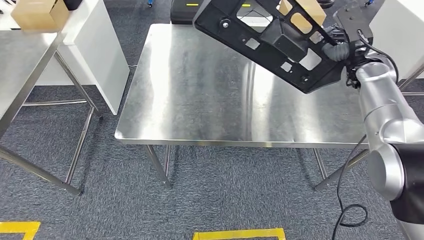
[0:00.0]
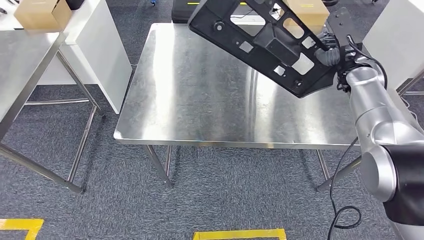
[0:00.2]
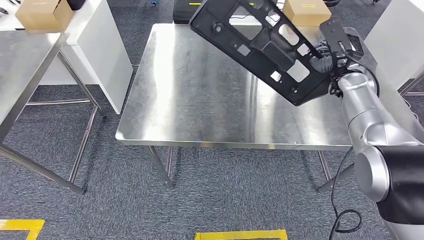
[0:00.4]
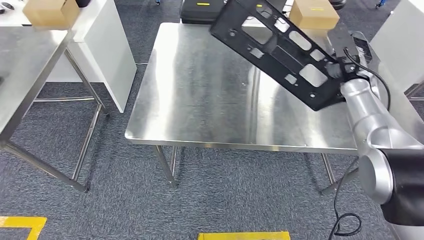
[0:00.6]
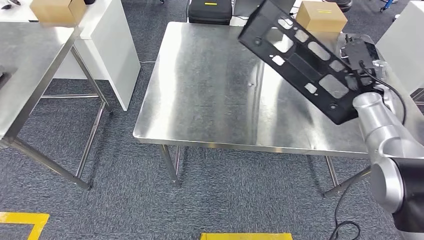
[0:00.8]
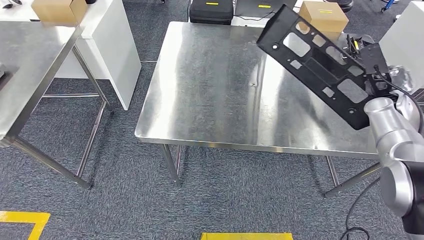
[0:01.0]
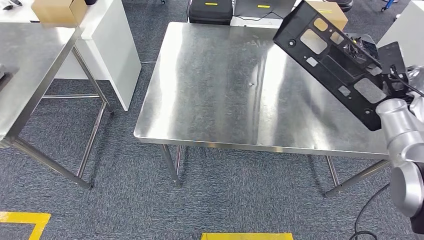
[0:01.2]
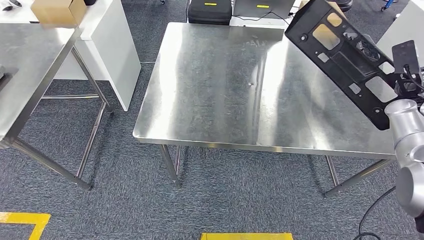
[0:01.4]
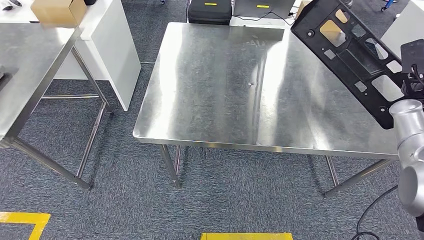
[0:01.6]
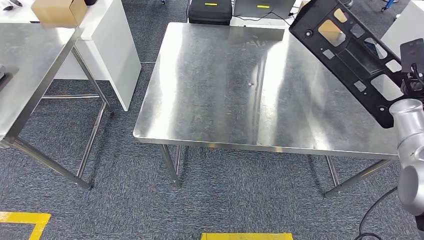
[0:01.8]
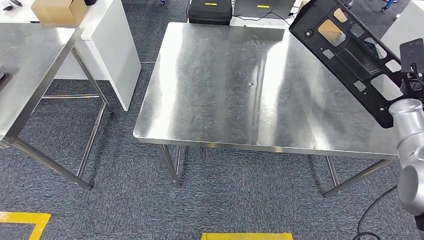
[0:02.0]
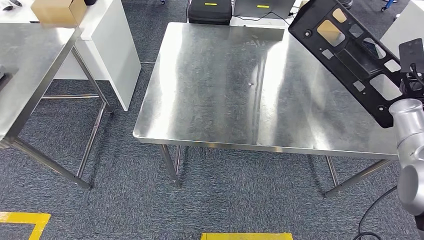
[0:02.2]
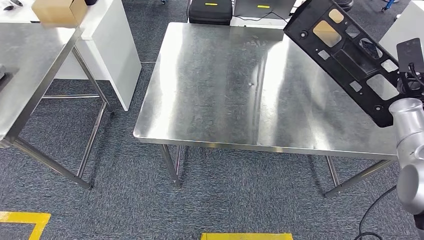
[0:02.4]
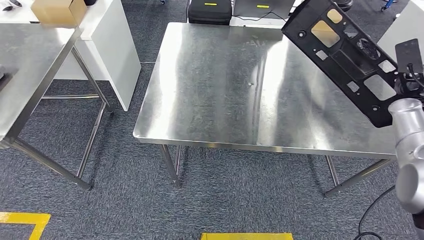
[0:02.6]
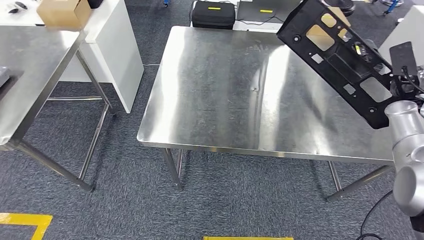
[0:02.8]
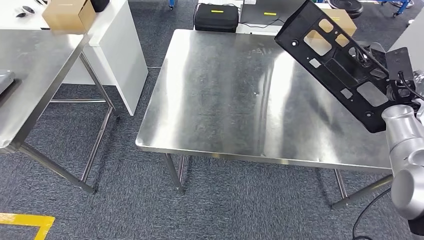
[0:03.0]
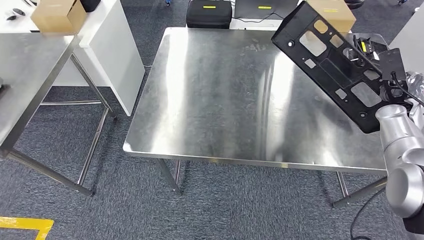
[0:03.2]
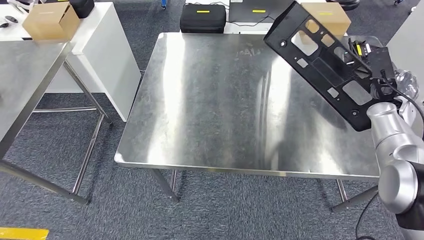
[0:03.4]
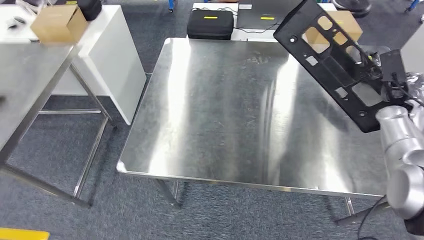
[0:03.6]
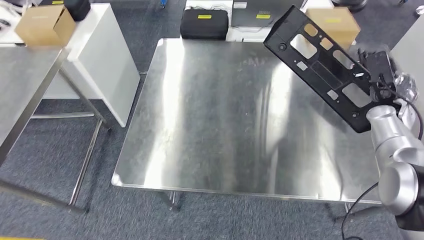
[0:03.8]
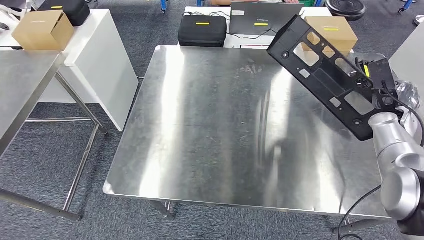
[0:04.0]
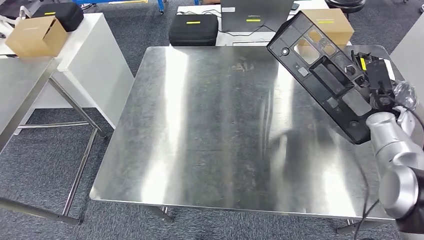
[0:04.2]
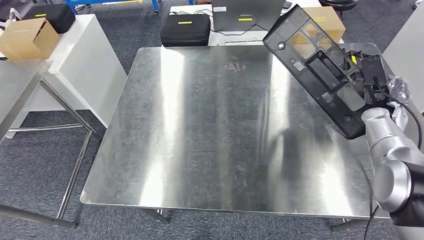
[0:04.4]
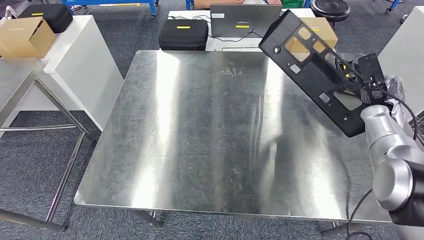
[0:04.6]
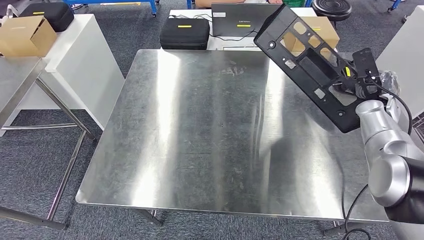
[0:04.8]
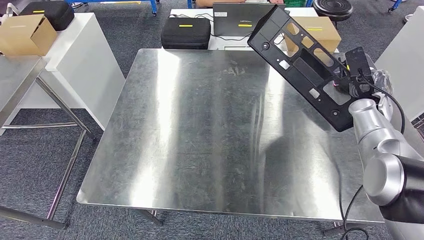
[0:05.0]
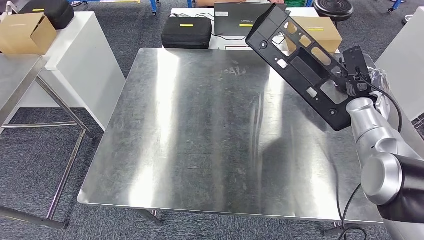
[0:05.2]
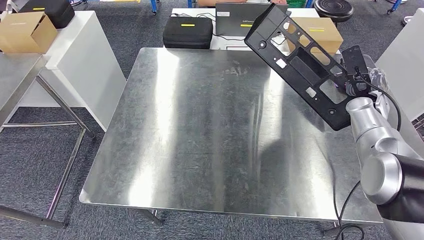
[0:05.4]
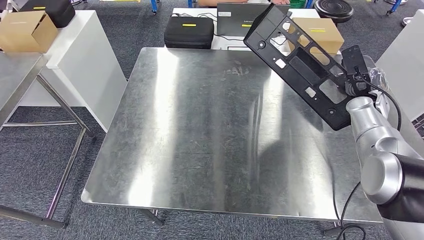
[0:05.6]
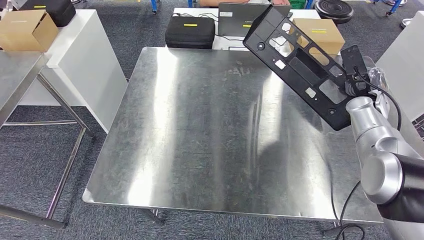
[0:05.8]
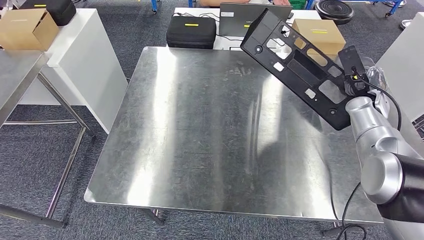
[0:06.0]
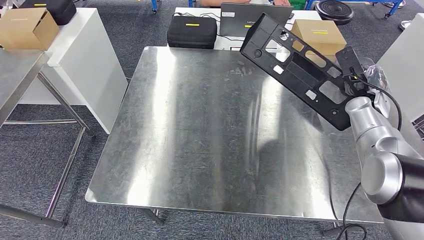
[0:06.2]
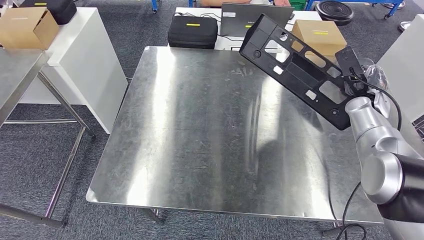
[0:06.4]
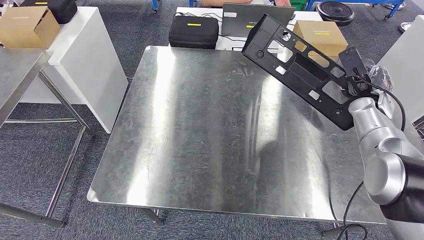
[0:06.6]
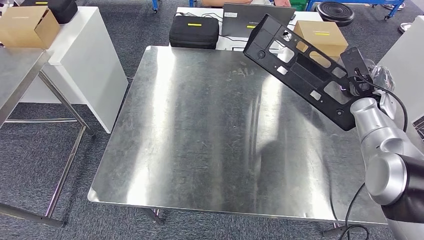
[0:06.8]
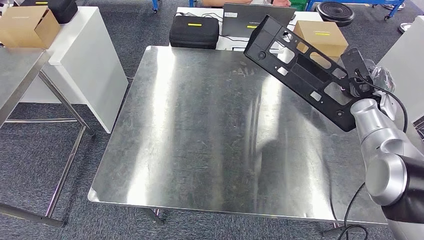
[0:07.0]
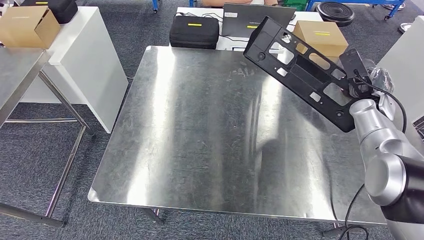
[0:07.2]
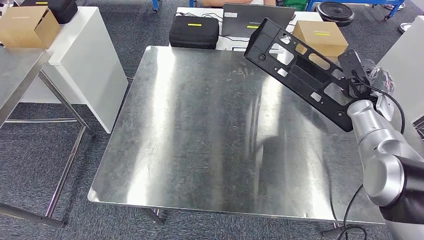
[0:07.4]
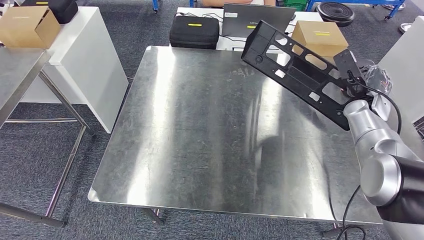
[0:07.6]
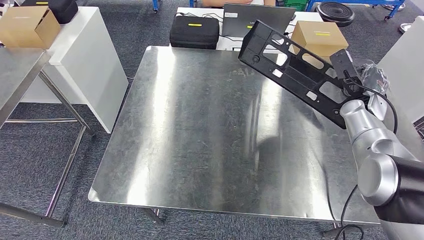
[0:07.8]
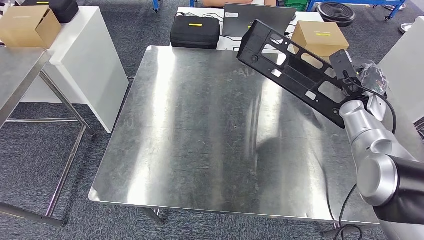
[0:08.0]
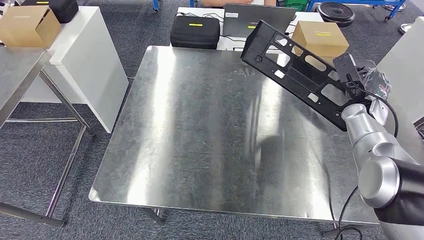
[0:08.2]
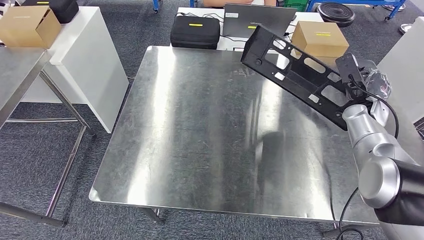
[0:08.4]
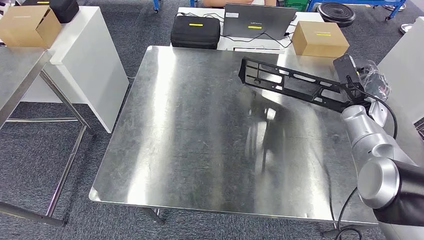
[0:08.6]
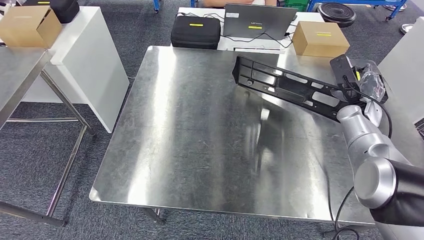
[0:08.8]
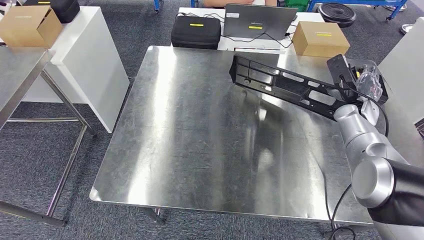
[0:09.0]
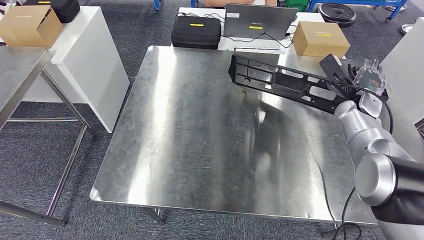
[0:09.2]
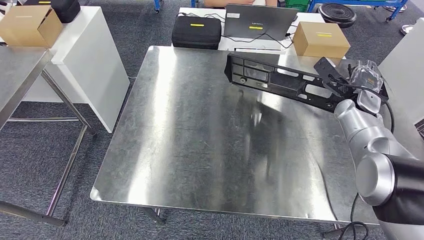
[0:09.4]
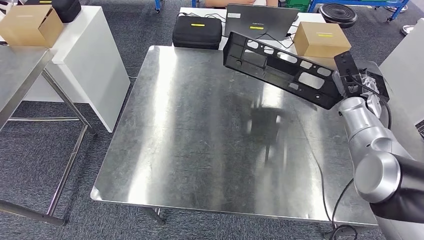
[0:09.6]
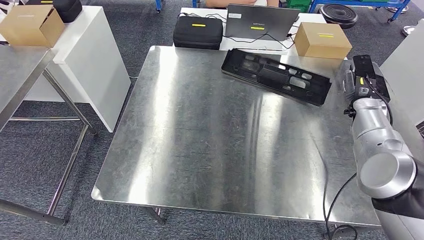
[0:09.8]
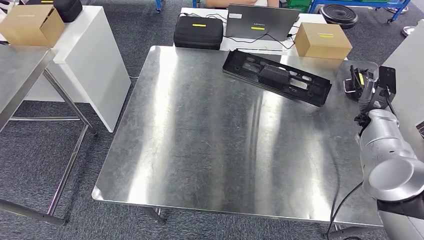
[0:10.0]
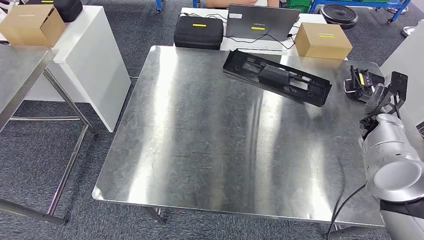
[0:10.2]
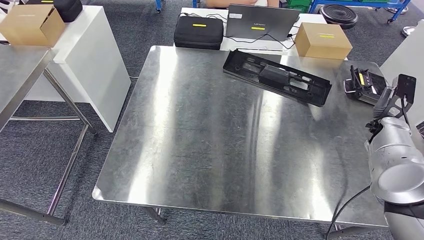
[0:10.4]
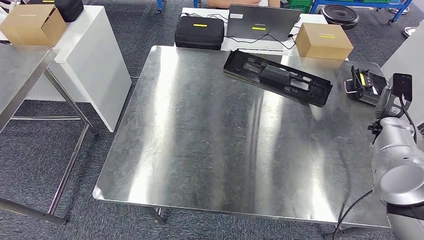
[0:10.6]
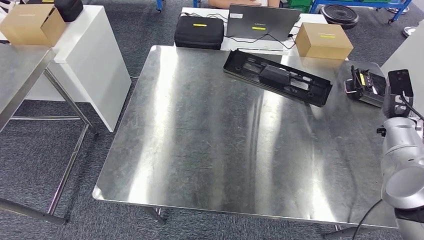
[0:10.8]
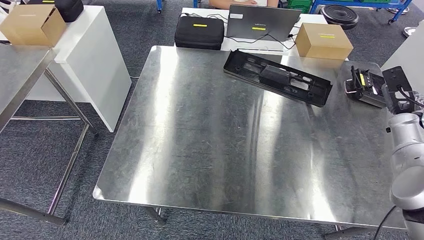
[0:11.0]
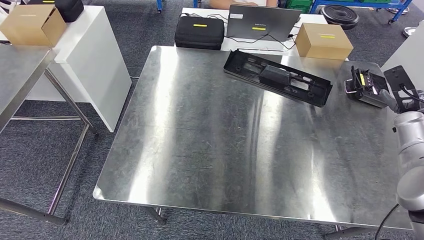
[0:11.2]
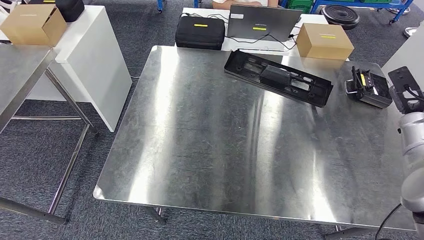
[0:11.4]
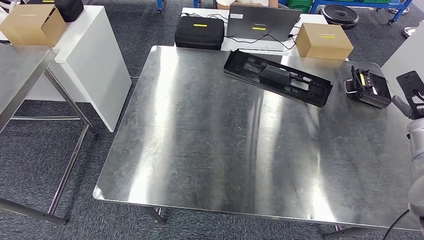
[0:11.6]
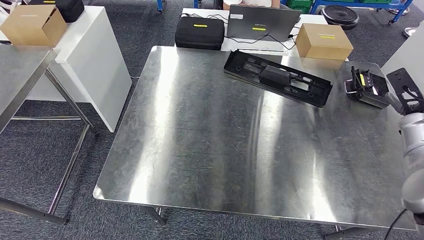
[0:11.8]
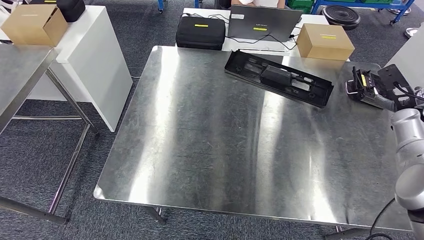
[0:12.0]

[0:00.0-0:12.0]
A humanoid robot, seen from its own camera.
Step, 0:00.0 to 0:09.8: Insert the large material into the corresponding slot on the workbench.
0:06.0 to 0:09.0: The hands make only small movements.
0:10.4 to 0:12.0: The right hand ends up some 5 cm from where it was.

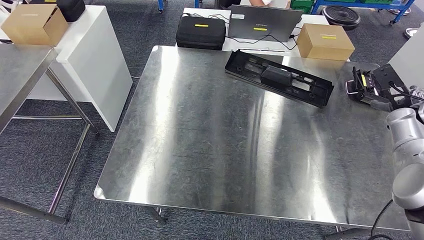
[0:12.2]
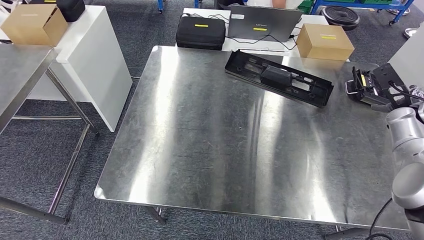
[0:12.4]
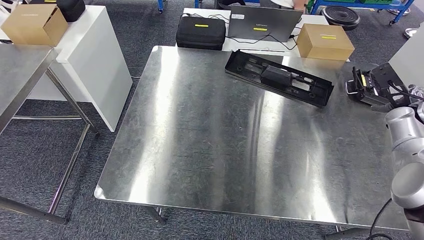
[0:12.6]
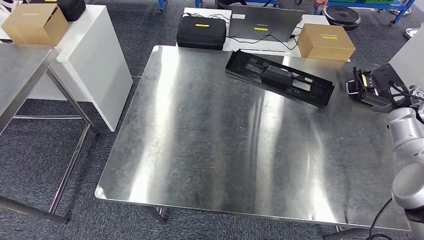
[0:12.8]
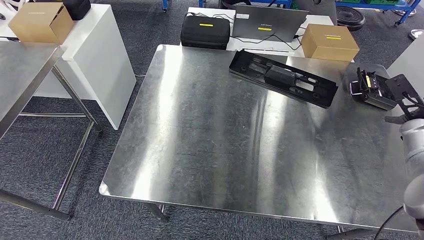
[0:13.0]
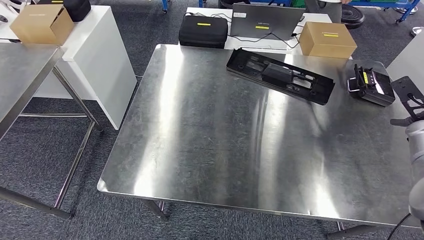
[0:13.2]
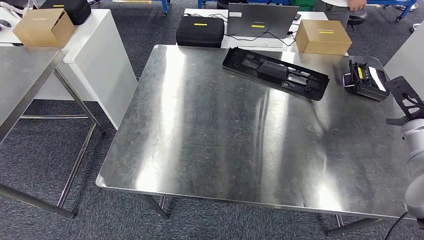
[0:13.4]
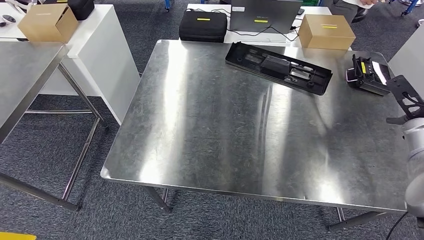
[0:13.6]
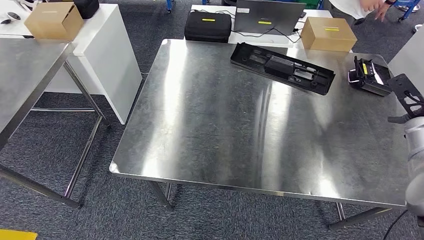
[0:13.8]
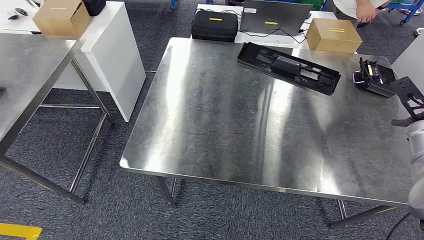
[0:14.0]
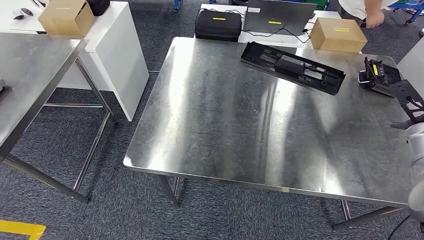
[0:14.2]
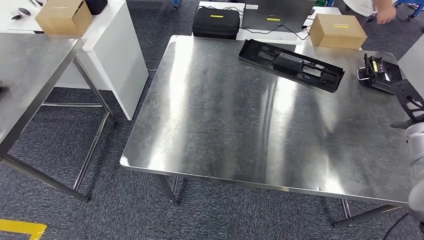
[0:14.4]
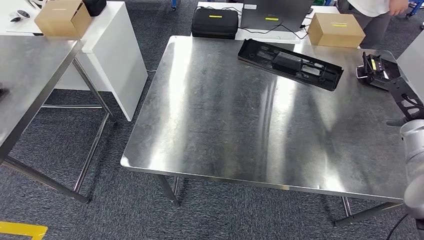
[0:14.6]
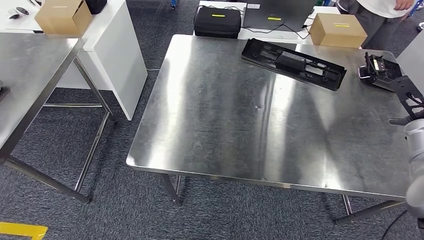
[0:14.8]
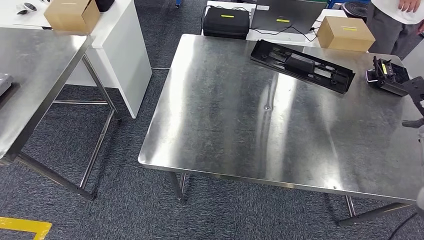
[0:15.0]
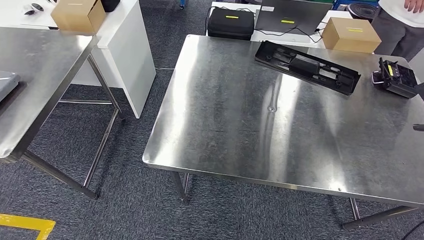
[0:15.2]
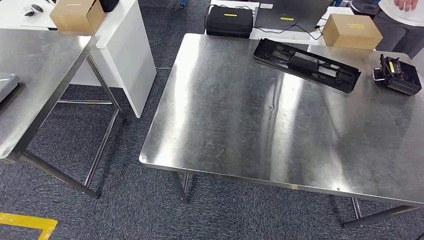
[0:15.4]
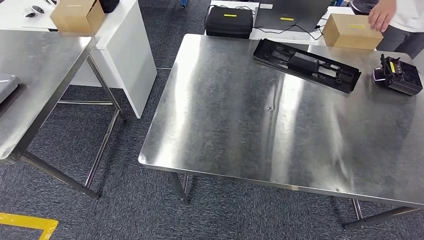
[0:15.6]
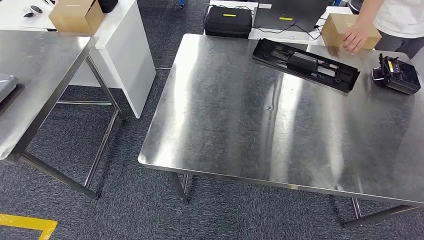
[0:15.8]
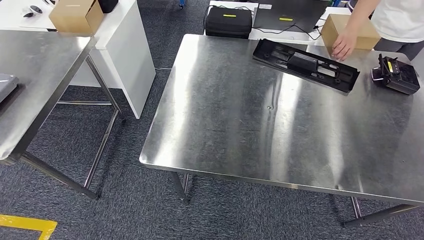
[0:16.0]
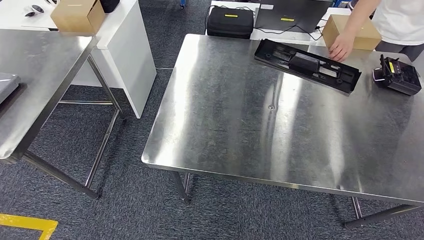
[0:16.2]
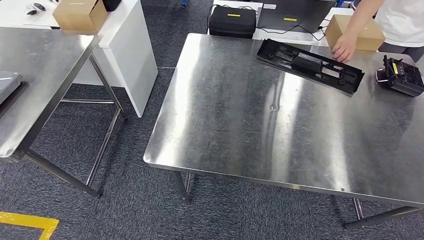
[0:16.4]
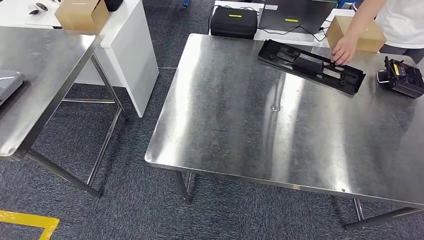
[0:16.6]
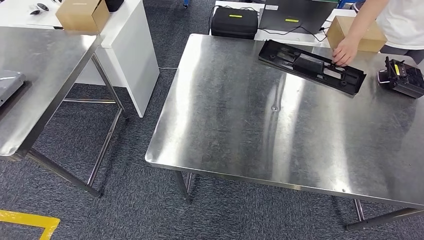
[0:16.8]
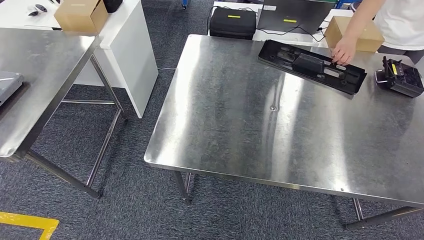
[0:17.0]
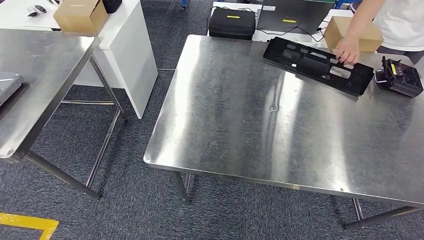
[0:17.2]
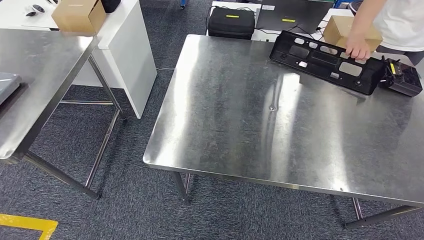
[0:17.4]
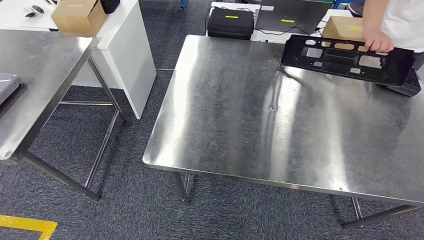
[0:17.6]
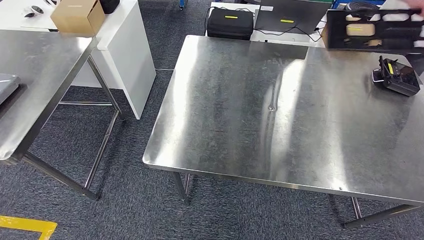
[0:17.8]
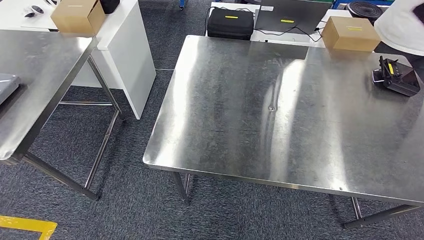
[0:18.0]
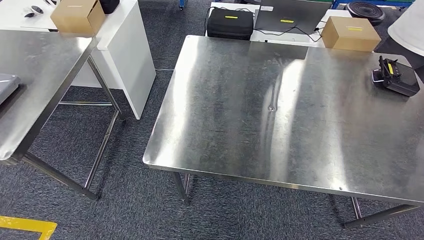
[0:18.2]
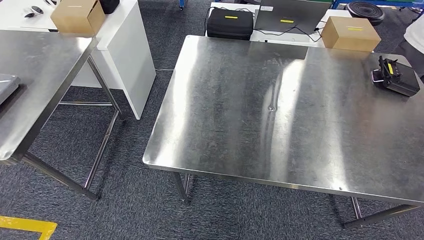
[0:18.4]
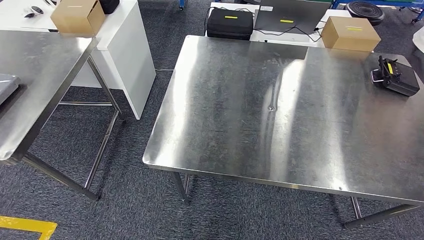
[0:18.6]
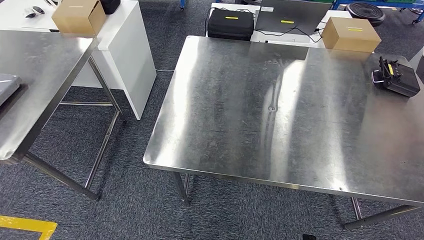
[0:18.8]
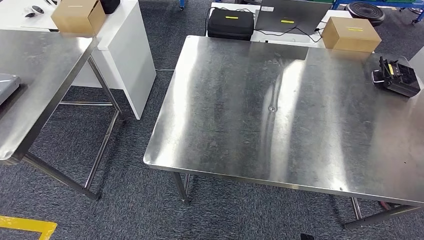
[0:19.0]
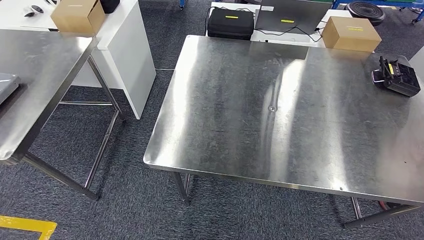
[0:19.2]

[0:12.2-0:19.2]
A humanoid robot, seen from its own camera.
0:16.4 to 0:17.8: The right hand goes about 40 cm downward, to the left and backward.
0:17.8 to 0:19.2: The right hand goes about 25 cm to the left and downward.
